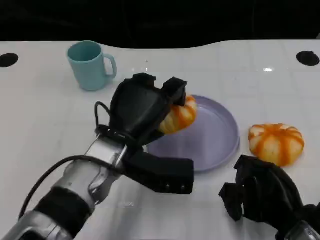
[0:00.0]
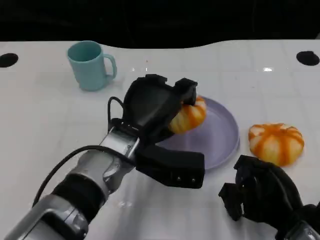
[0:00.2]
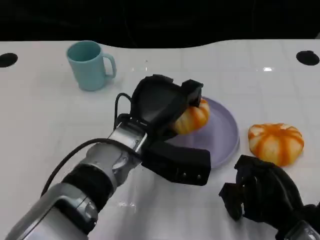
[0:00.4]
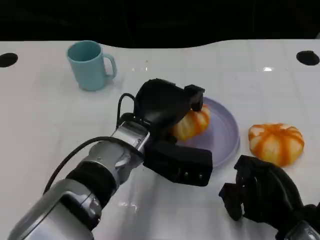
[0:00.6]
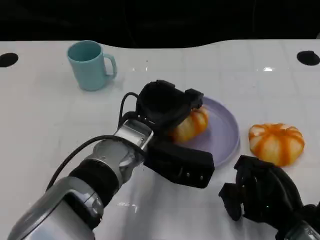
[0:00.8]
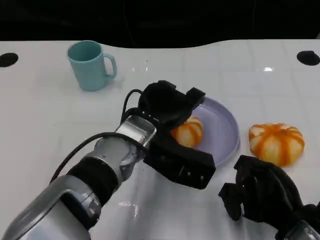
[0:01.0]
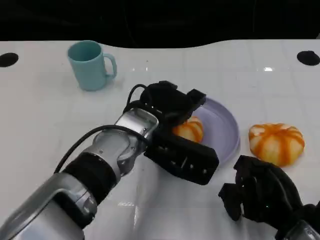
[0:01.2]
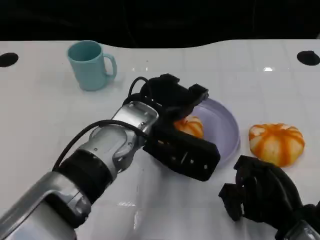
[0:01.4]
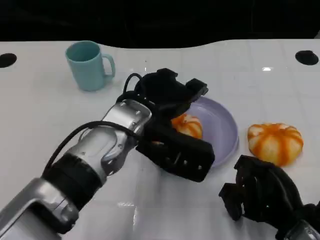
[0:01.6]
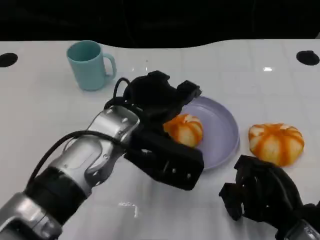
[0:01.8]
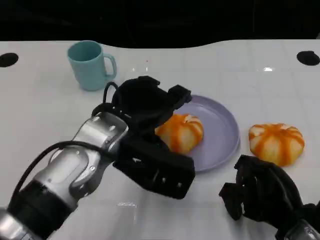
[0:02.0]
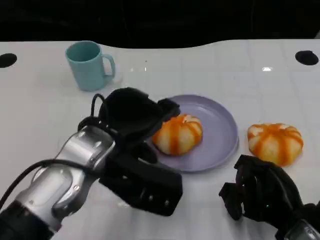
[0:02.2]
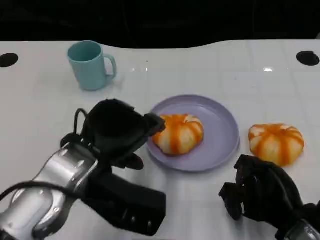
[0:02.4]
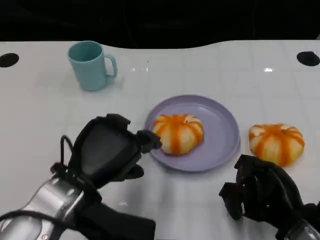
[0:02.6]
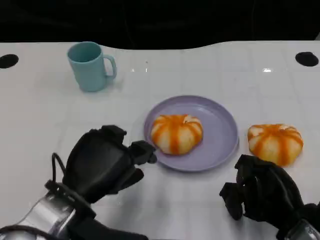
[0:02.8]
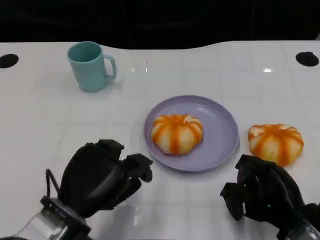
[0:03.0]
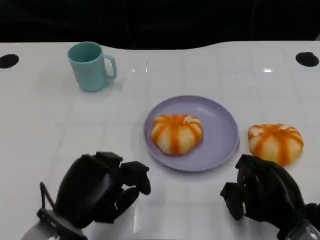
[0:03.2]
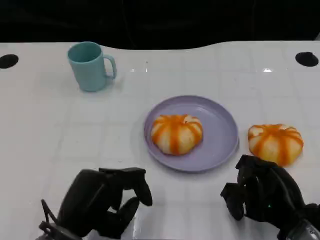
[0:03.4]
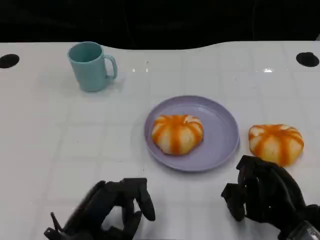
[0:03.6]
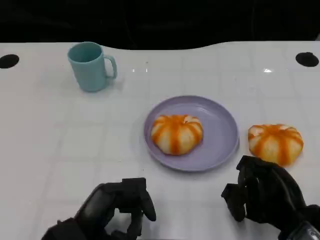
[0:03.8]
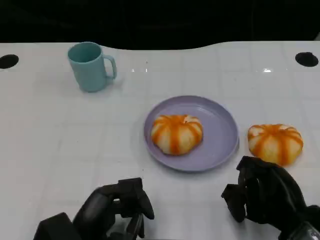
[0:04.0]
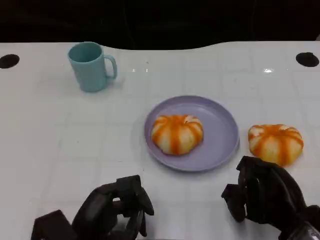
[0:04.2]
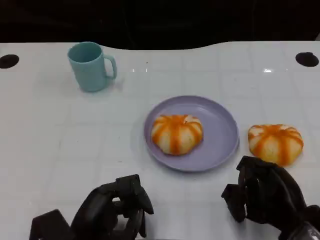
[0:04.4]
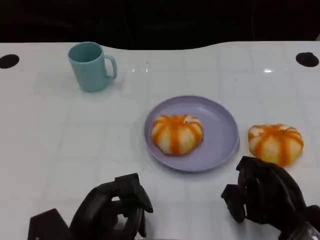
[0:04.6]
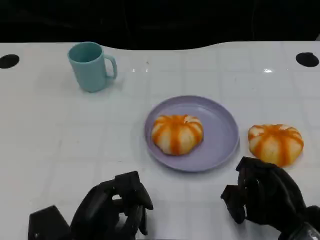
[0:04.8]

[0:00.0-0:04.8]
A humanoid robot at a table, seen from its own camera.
Task of the whole recording: Grasp the bread from the table and place it into the plate.
0:00.0 to 0:01.6: The left hand heads upward, covering some 5 cm.
0:01.6 to 0:03.2: The left hand shifts about 20 cm backward, to the left and downward.

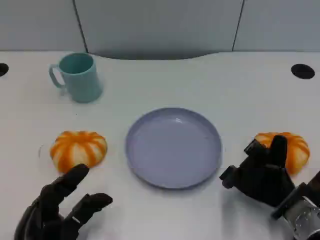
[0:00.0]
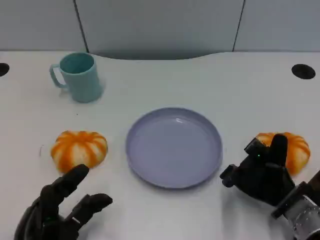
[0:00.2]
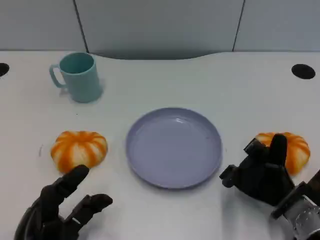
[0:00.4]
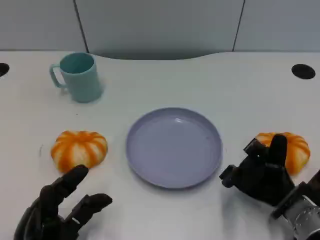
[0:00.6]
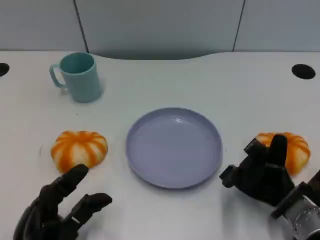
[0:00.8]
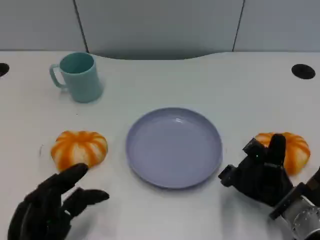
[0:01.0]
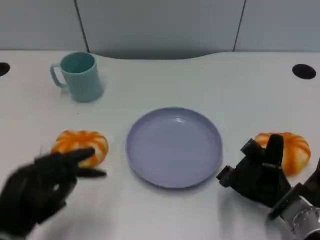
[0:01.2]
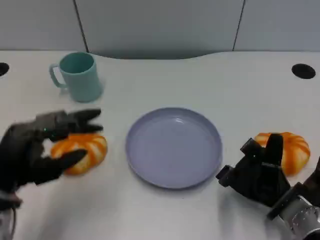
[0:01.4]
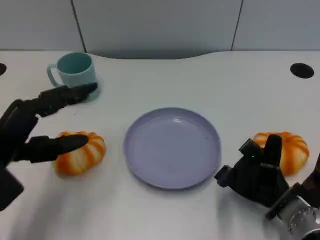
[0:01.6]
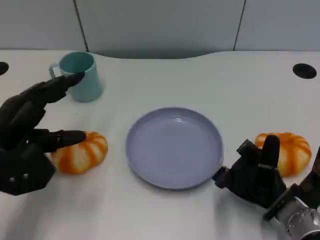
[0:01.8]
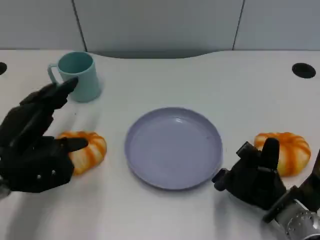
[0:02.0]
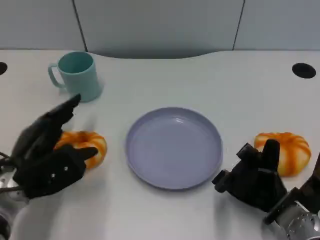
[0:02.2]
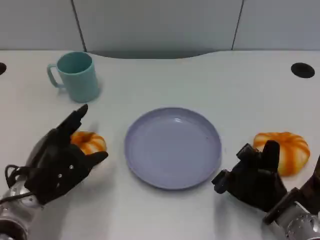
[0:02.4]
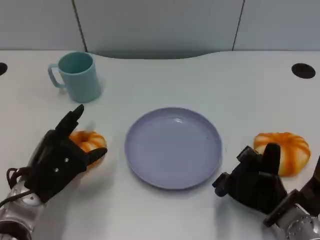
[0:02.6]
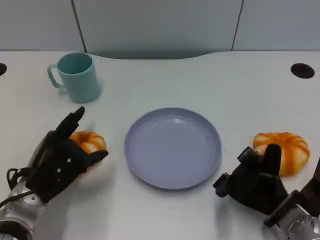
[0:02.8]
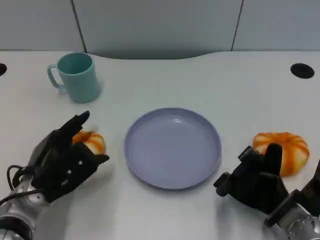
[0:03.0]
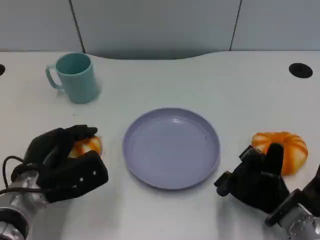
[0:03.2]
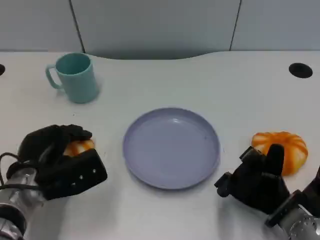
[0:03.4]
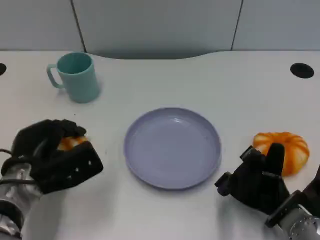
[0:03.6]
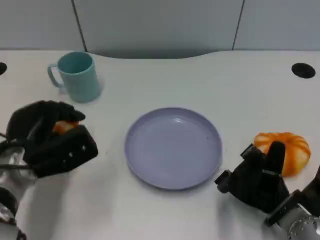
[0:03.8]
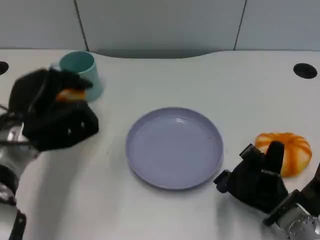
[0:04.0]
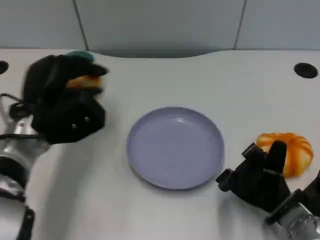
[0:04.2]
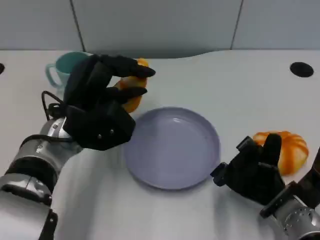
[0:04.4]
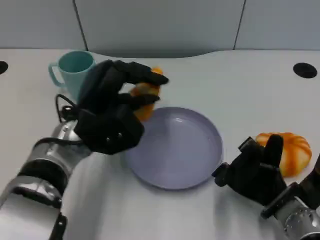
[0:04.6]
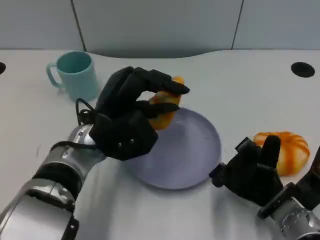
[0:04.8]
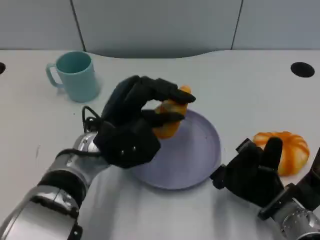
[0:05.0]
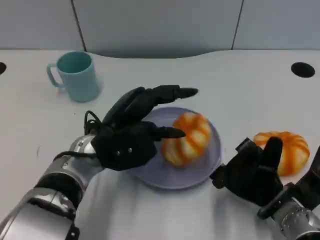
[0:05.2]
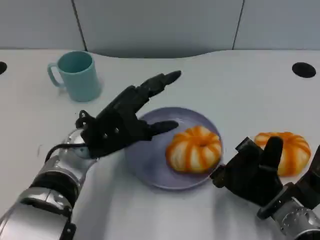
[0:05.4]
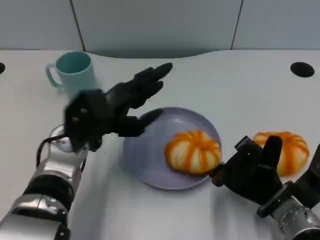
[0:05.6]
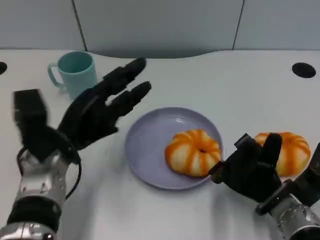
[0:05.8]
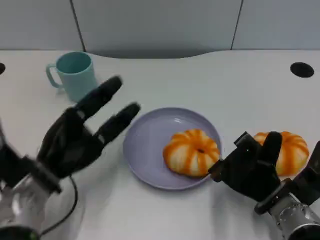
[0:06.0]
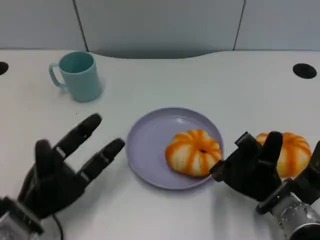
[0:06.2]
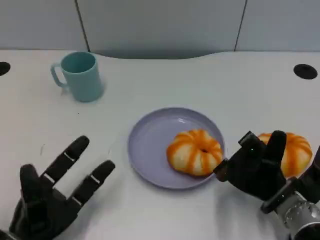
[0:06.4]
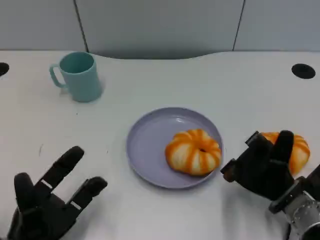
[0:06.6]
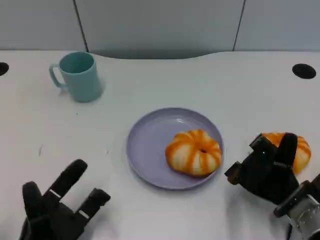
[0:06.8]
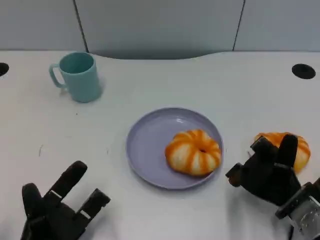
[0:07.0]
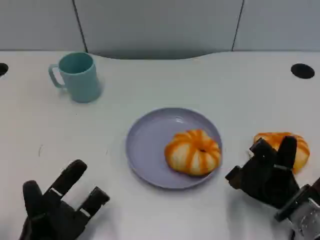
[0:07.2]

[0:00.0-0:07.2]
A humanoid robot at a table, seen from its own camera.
Task of the whole recording: Grasp the bread from the table and place it into the plate.
0:00.0 to 0:01.4: The left hand is displaced upward and forward by some 10 cm.
0:01.4 to 0:02.8: The left hand goes some 5 cm downward.
0:02.8 to 0:04.4: The left hand is displaced upward, to the right and forward by some 10 cm.
0:04.4 to 0:05.8: The left hand ends up about 5 cm from where it was.
0:05.8 to 0:07.2: The left hand moves backward and downward, about 15 cm.
